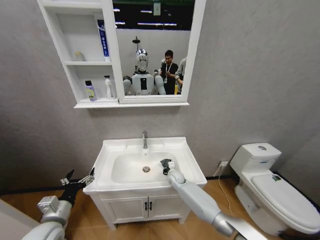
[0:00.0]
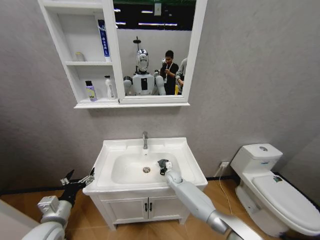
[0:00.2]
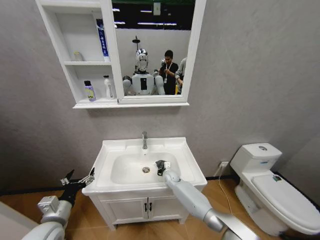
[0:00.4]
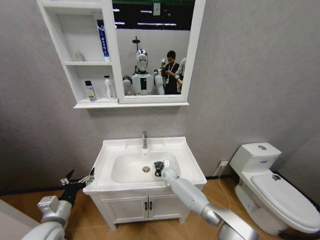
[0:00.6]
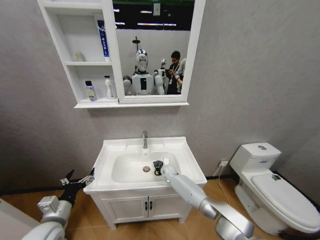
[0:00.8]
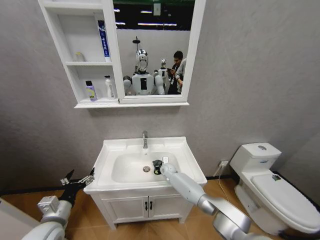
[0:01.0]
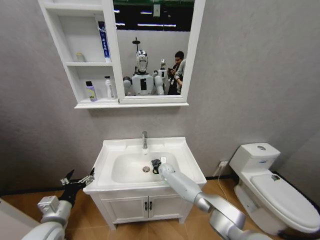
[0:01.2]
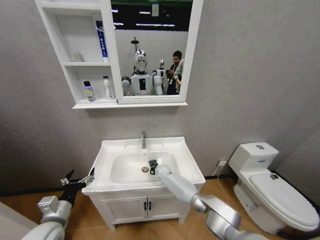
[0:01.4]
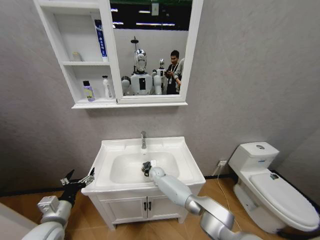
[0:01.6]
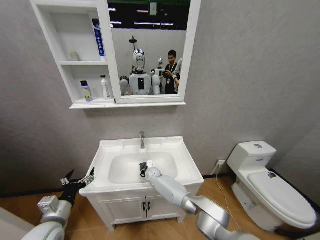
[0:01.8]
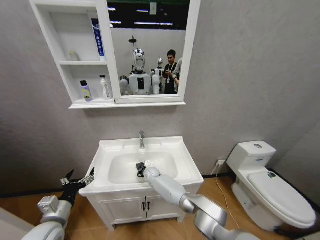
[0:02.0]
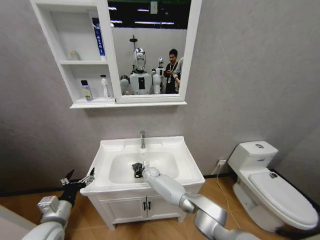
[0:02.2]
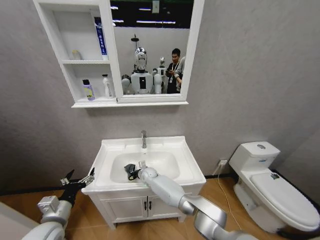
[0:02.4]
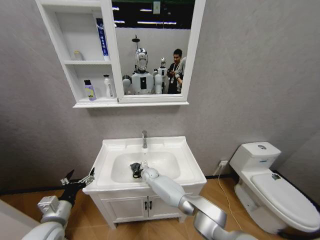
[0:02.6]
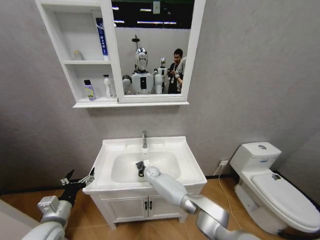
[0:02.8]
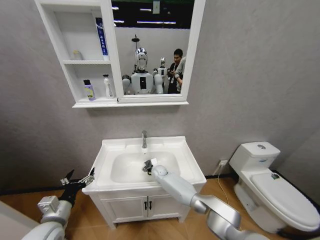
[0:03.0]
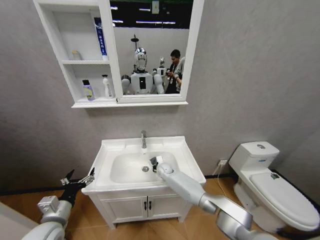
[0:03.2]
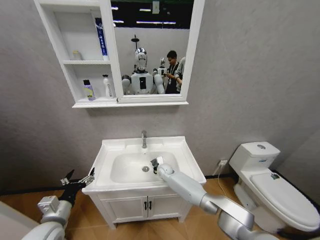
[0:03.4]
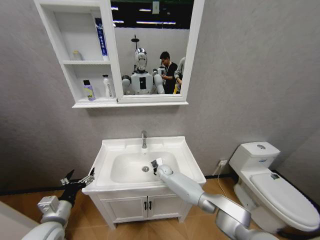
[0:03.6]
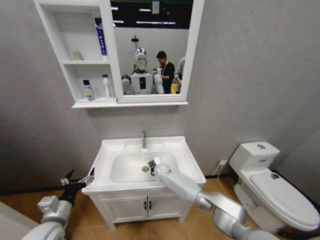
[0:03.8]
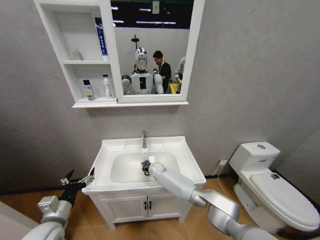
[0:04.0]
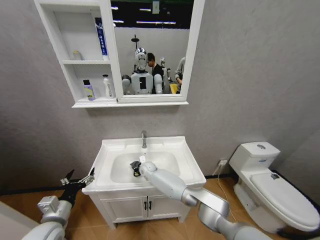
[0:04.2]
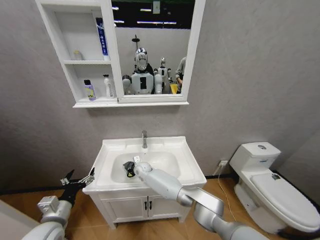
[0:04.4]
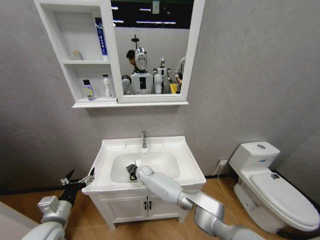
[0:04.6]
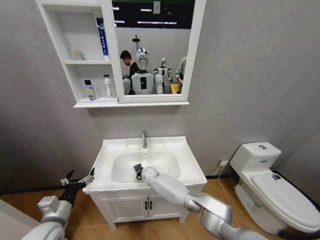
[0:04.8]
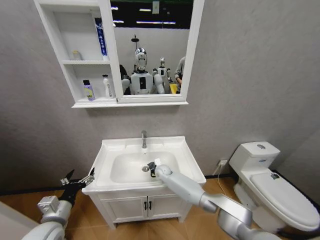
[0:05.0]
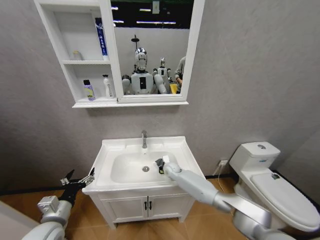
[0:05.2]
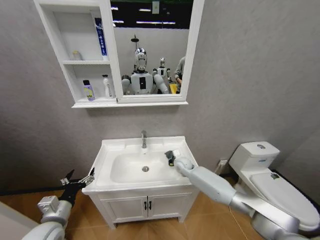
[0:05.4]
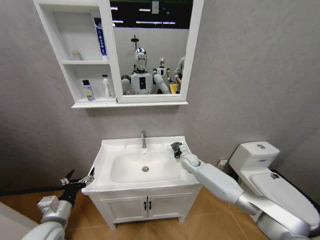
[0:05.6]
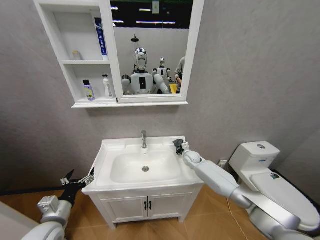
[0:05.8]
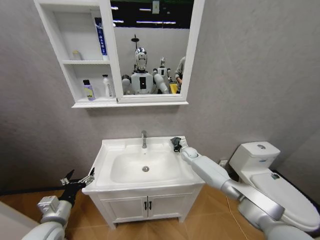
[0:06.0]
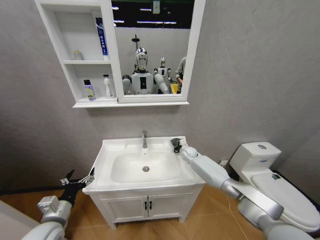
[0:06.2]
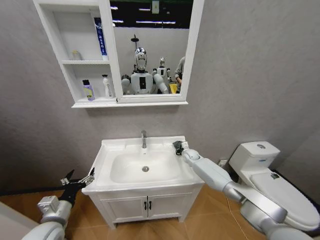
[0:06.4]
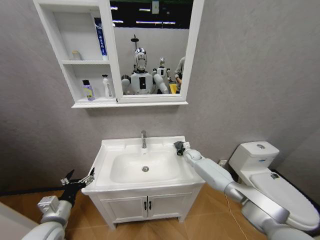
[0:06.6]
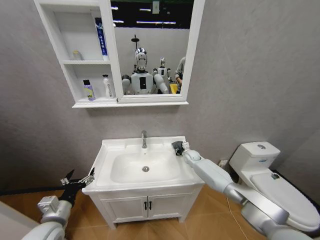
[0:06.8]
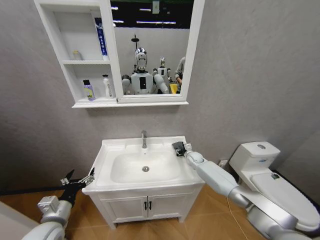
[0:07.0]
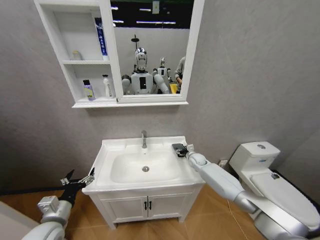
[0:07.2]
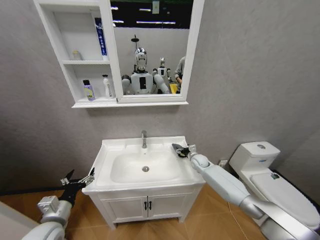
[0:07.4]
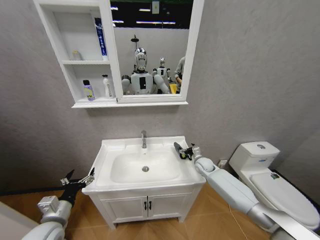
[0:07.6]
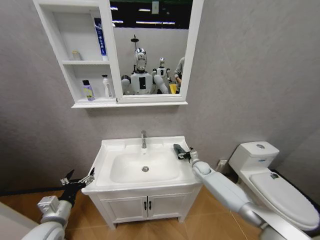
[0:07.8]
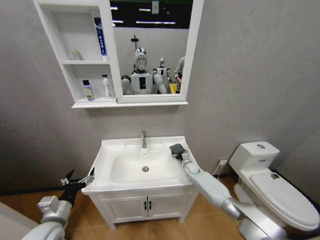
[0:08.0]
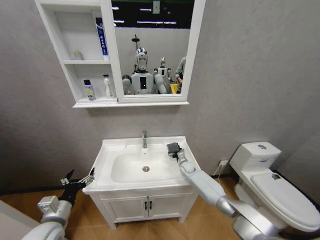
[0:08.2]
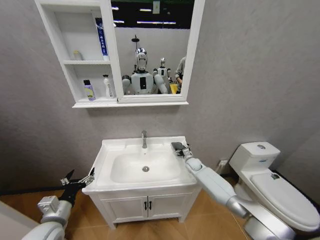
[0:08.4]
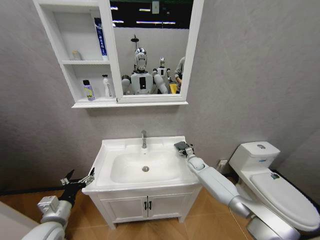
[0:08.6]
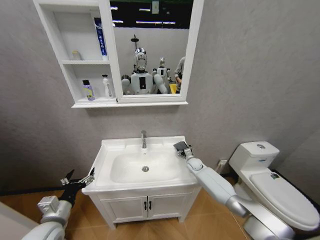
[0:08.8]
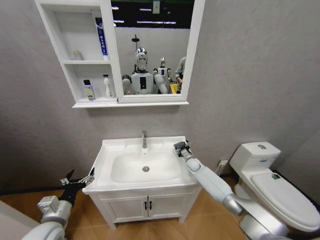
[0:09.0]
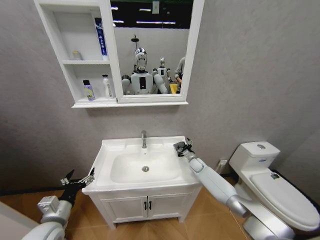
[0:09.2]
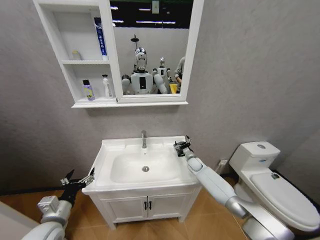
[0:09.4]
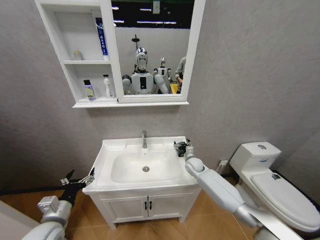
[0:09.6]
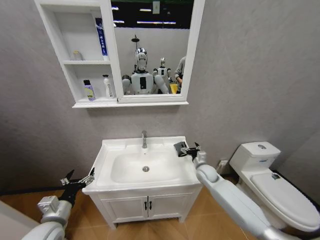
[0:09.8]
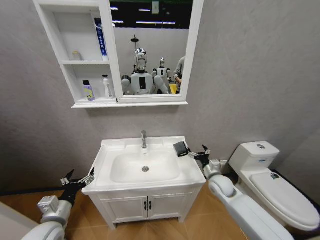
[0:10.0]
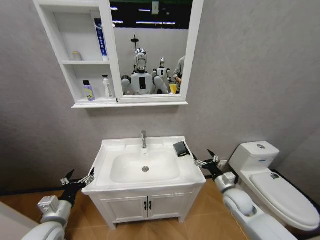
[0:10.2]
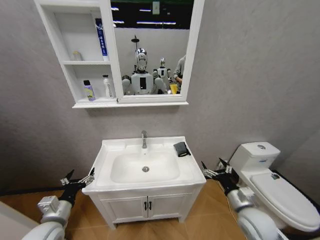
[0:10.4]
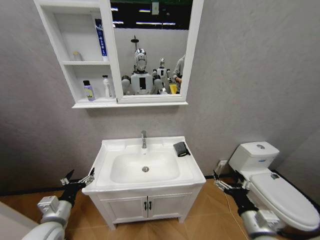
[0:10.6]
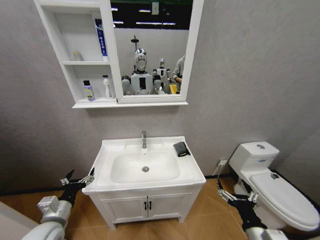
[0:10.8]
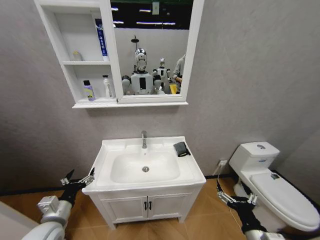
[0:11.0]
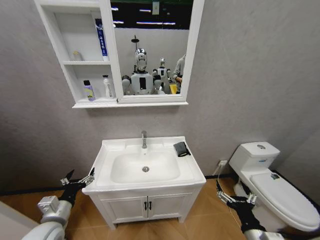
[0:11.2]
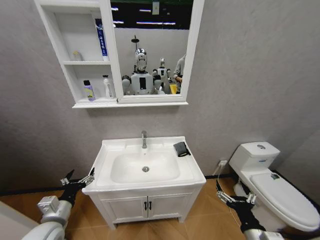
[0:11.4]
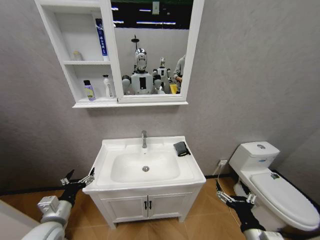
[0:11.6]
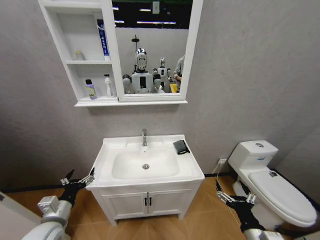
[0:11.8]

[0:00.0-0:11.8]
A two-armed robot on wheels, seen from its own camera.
Task of the whole recording: Move facial cleanser and shampoo from washbasin to cabinet, then wipe washbasin with towel.
0:00.0 to 0:01.4: The right gripper heads to the left and forward, covering approximately 10 cm.
0:01.4 to 0:03.0: The right gripper moves about 10 cm to the left and comes back.
0:03.0 to 0:04.4: The right gripper goes approximately 10 cm to the left.
0:04.4 to 0:06.0: The right gripper goes about 30 cm to the right.
0:06.0 to 0:07.4: The right gripper shifts some 5 cm backward, and opens.
0:07.4 to 0:08.8: The right gripper is displaced downward by about 5 cm.
0:08.8 to 0:10.4: The right gripper moves backward, roughly 30 cm.
0:10.4 to 0:11.8: The right gripper goes some 10 cm backward.
